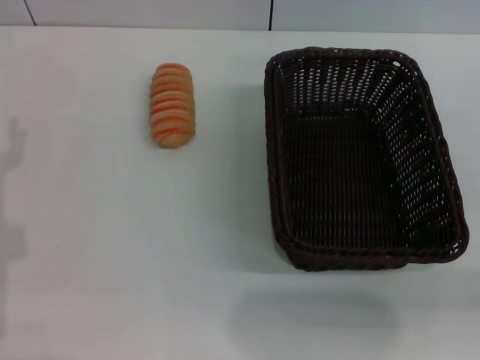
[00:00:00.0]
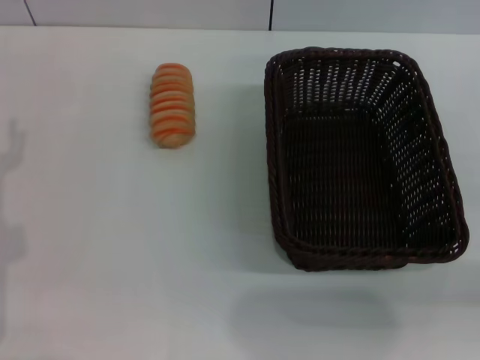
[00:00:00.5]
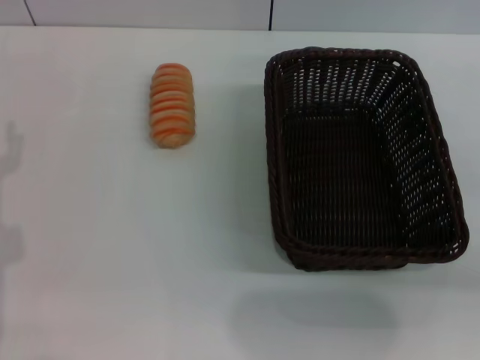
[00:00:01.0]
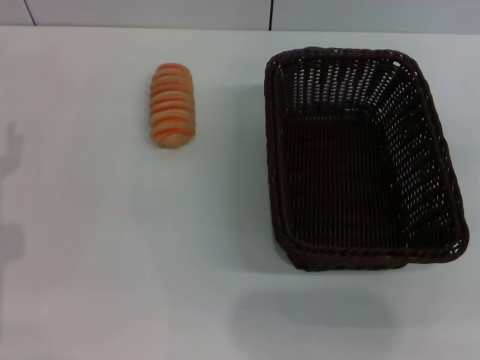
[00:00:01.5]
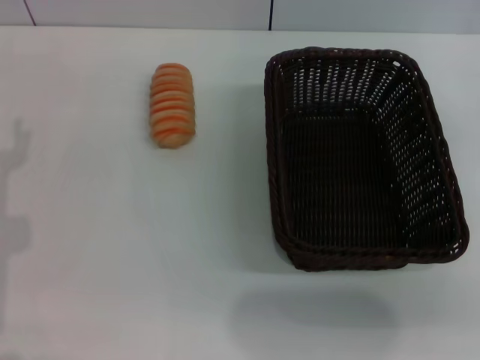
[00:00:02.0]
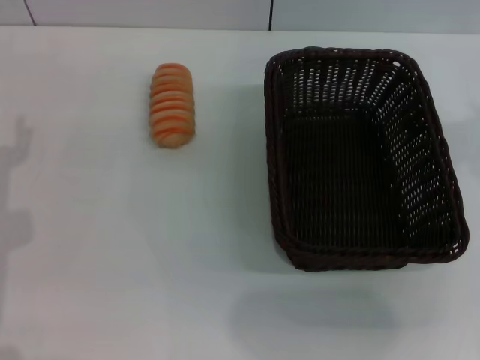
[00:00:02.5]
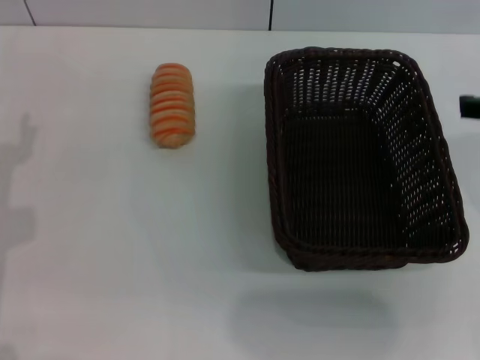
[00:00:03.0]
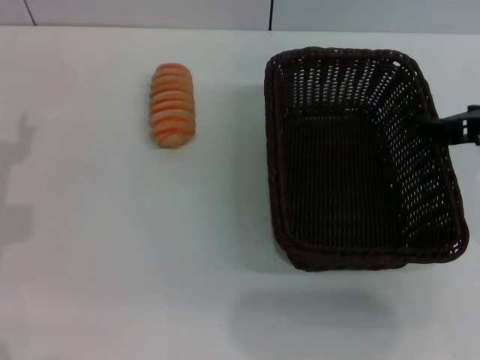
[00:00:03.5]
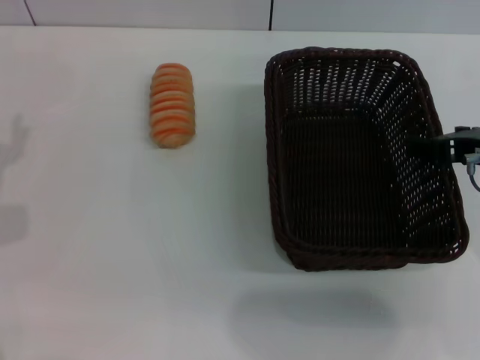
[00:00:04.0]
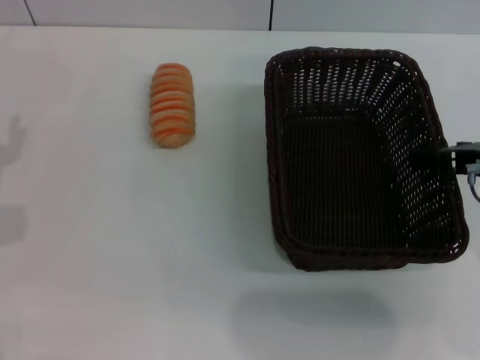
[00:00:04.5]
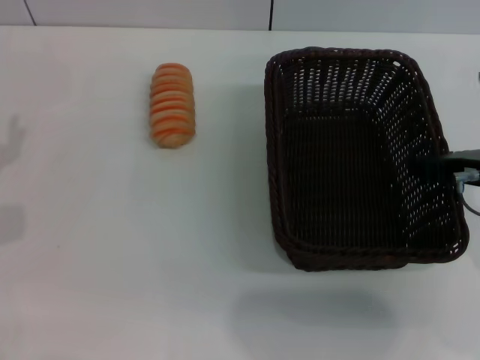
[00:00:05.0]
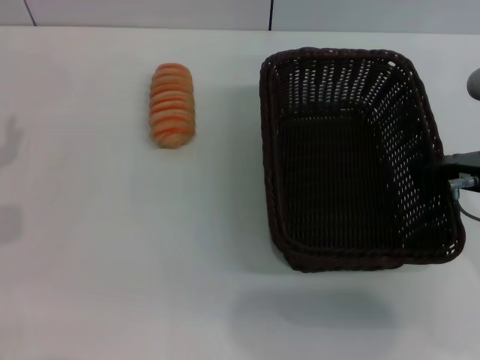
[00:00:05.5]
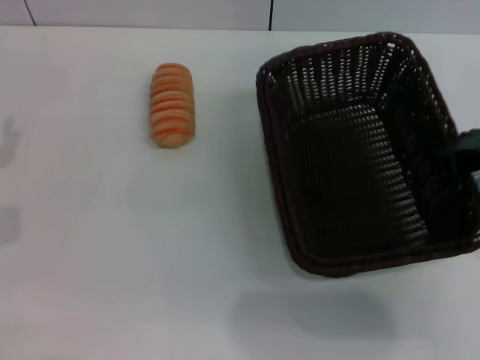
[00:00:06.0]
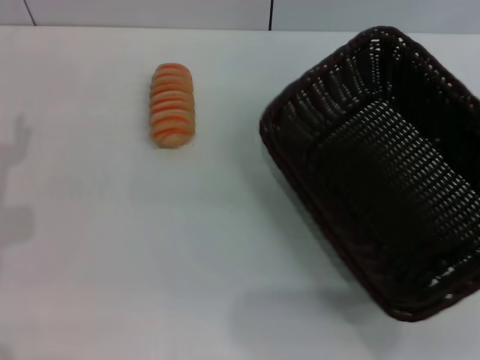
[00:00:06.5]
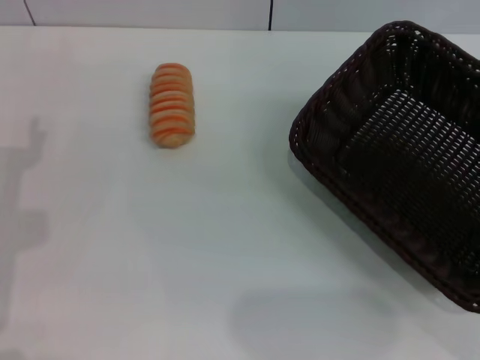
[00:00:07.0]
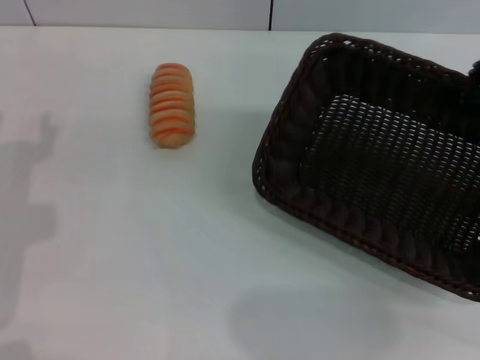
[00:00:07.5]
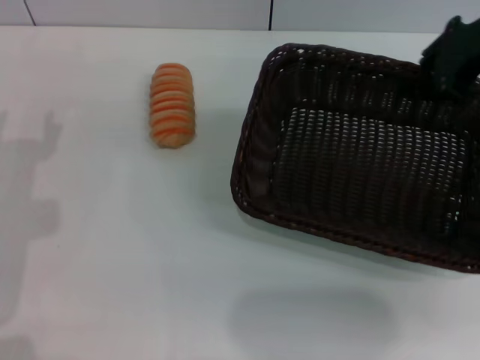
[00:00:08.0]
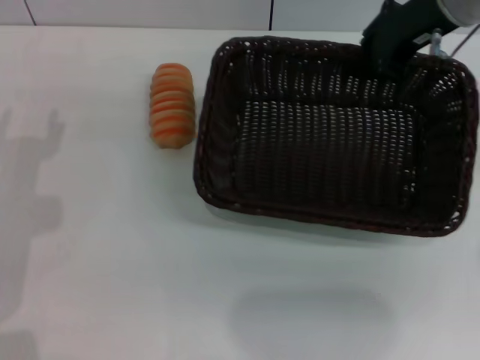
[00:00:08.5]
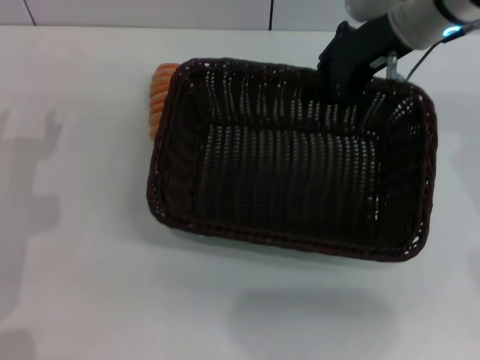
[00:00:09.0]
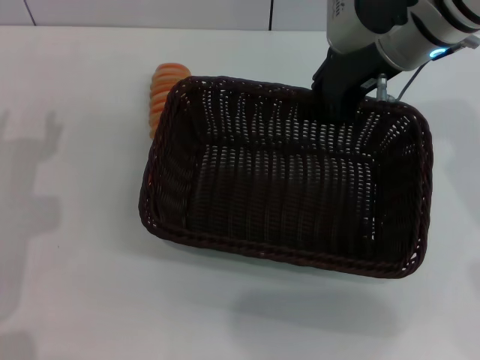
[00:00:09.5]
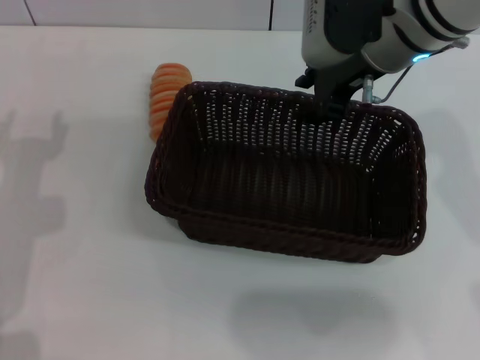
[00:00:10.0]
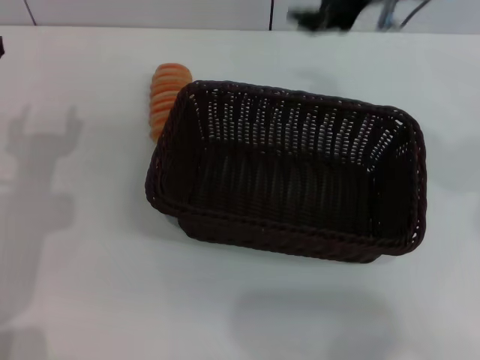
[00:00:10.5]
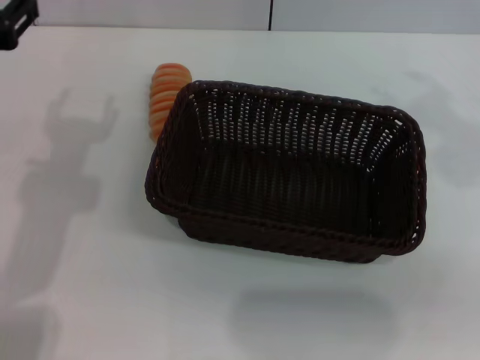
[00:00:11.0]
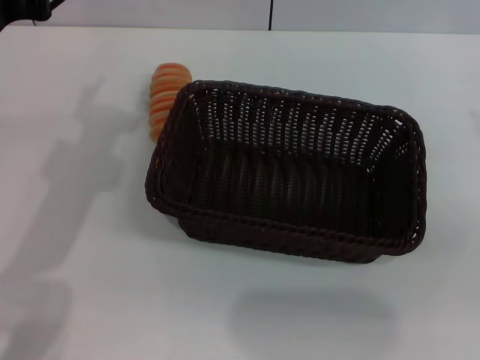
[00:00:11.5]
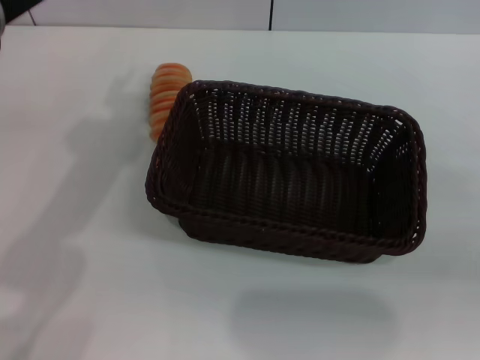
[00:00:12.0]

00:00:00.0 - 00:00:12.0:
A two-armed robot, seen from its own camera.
Step, 00:00:00.0 - 00:00:06.5: Pick up the dark basket with the right gripper.
Step, 00:00:07.0 - 00:00:10.0: Place the dark basket in the center of view with the right gripper.
00:00:02.0 - 00:00:04.0: The right gripper travels to the left and downward by some 15 cm.
00:00:04.0 - 00:00:06.0: The right gripper closes up.
00:00:06.0 - 00:00:08.0: The right gripper shifts approximately 15 cm forward and upward.
00:00:08.0 - 00:00:10.0: The right gripper shifts roughly 10 cm to the left.
00:00:10.0 - 00:00:12.0: The right gripper heads to the right and backward, covering some 35 cm, and opens up. Meanwhile the left gripper shifts some 15 cm upward, to the right and forward.

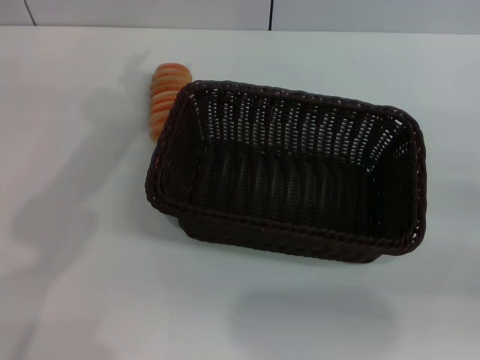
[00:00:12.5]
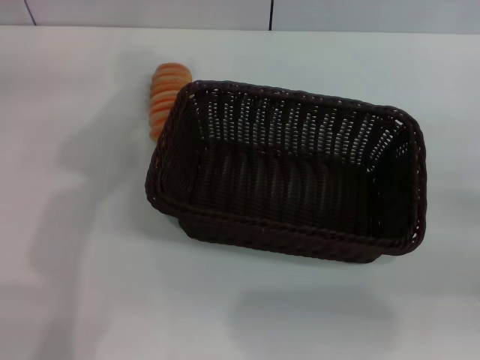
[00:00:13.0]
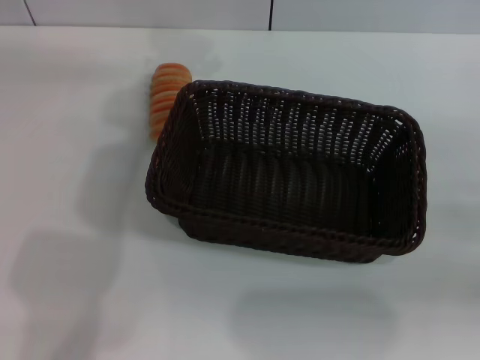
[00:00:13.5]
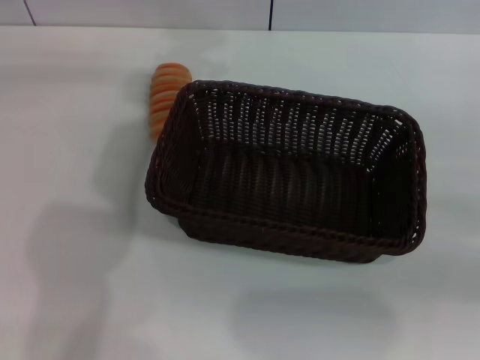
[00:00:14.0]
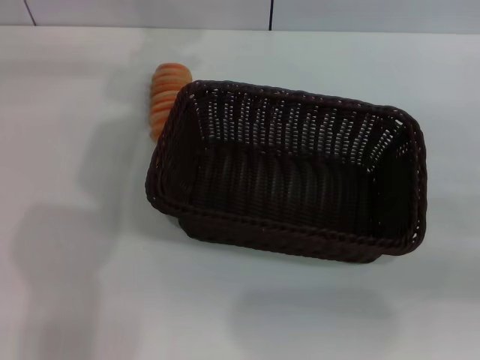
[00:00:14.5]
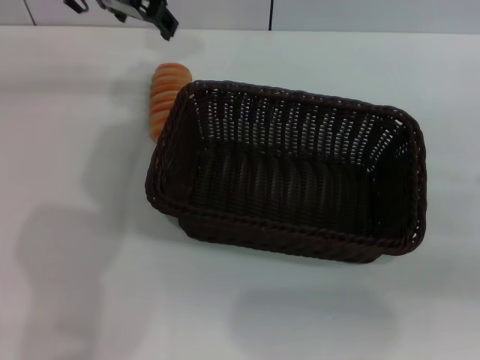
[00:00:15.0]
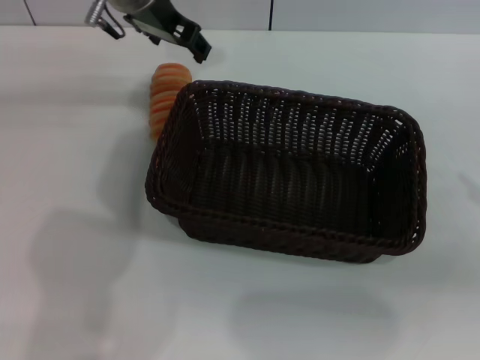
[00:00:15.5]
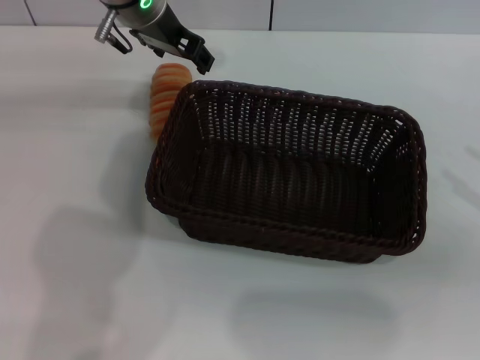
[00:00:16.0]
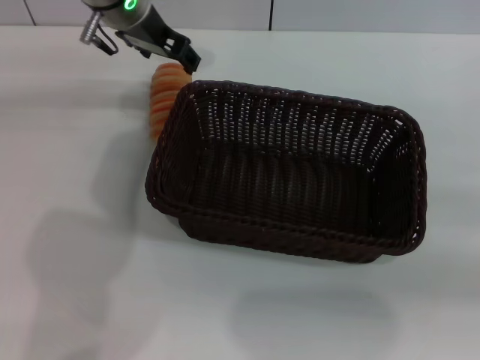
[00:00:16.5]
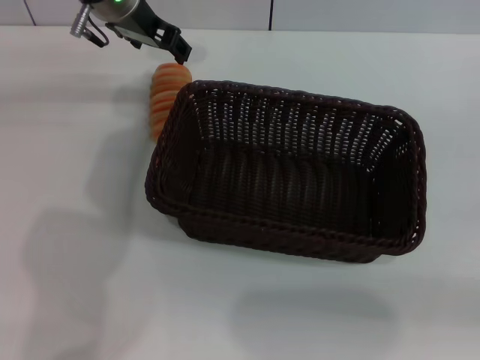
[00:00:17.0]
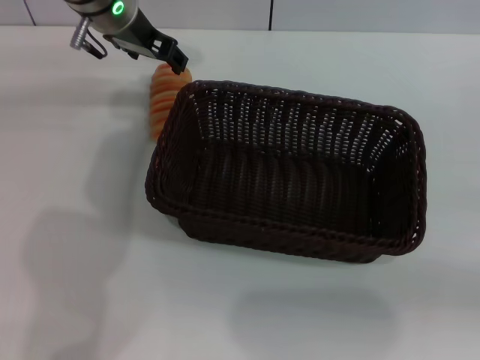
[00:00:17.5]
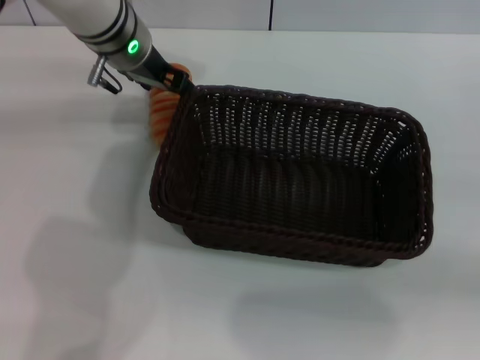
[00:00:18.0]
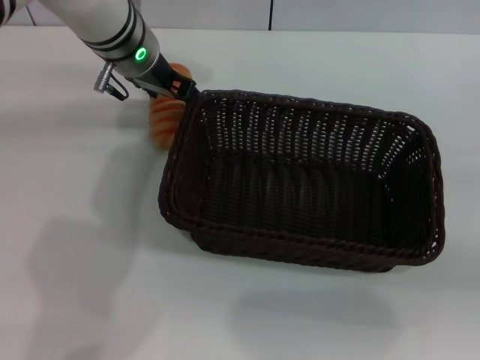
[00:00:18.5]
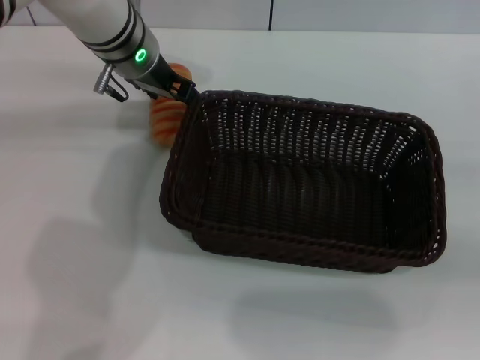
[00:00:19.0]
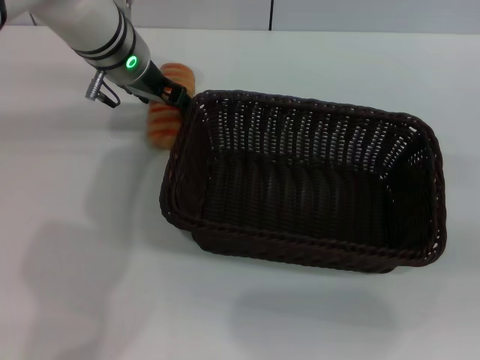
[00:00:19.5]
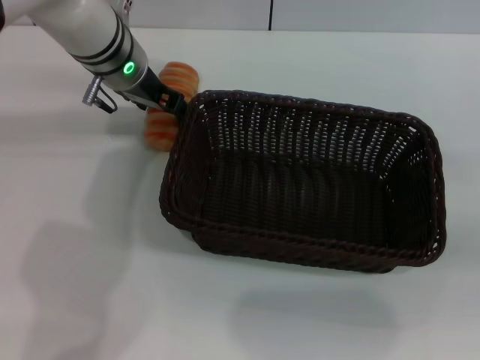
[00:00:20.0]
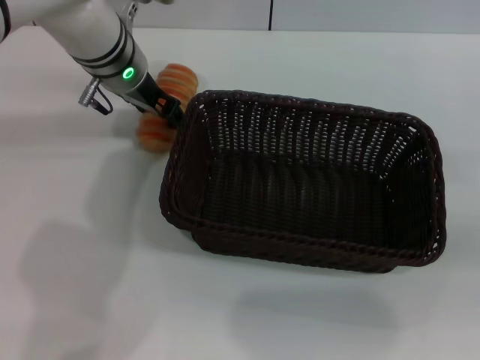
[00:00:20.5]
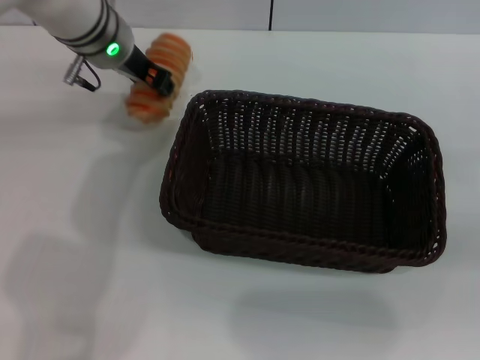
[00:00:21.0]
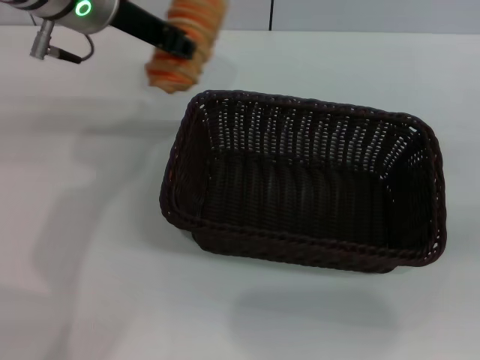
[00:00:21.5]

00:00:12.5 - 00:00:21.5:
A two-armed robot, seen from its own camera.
Step, 00:00:12.5 - 00:00:21.0: Pick up the long bread with the left gripper.
00:00:14.5 - 00:00:17.0: The right gripper goes roughly 10 cm to the right and backward. The left gripper moves downward, approximately 10 cm.
00:00:17.0 - 00:00:19.5: The right gripper shifts about 10 cm forward and to the left. The left gripper goes about 5 cm downward.
00:00:19.5 - 00:00:21.5: The left gripper moves upward and backward, approximately 10 cm, and closes.

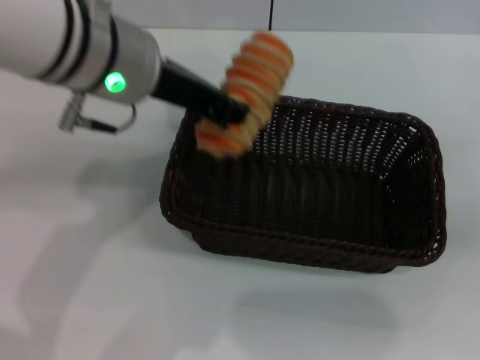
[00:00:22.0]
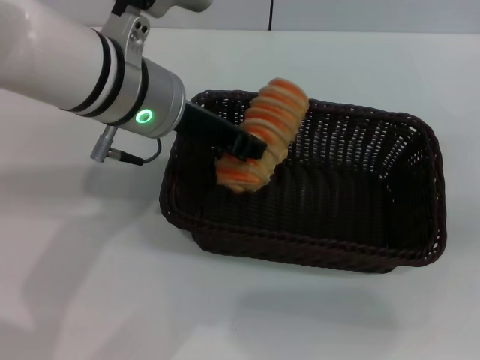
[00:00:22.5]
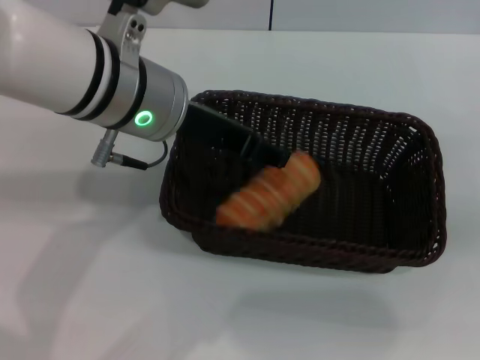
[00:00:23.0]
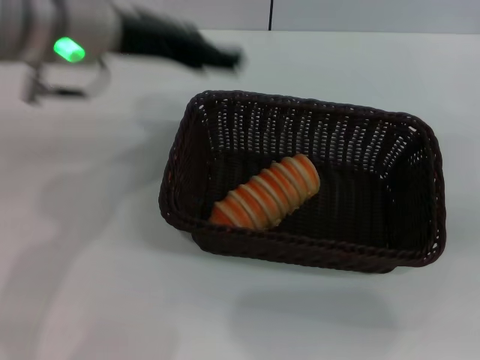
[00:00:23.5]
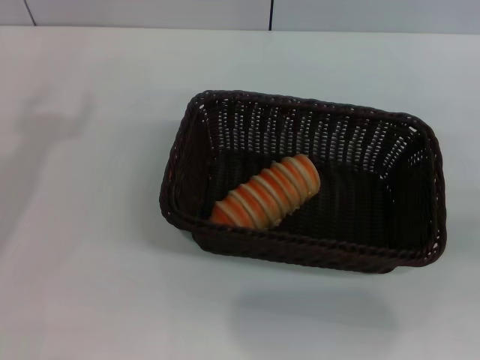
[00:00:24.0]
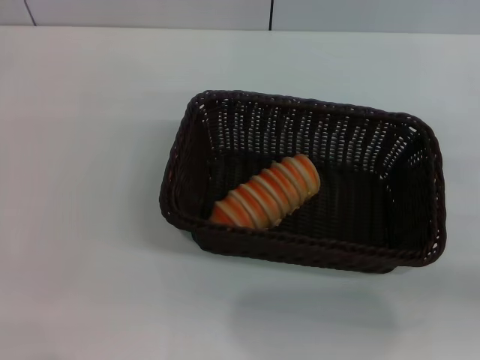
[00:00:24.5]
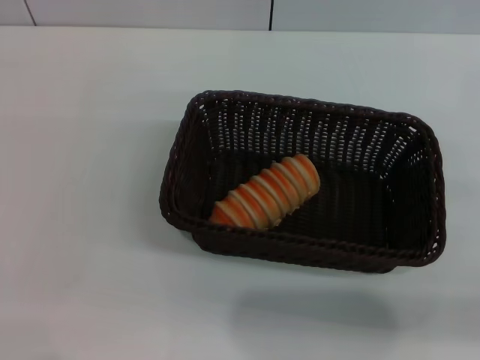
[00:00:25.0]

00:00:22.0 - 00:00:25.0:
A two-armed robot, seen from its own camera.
00:00:22.0 - 00:00:23.5: The left gripper opens its fingers.
00:00:23.5 - 00:00:25.0: The right gripper goes approximately 10 cm backward. The left gripper shifts about 30 cm to the left and backward.
